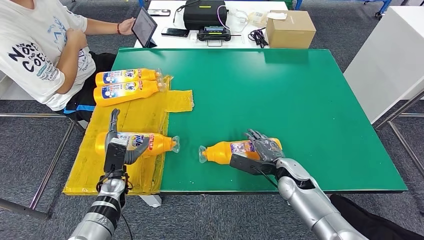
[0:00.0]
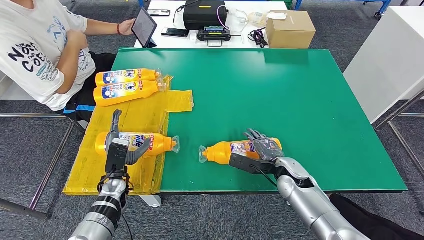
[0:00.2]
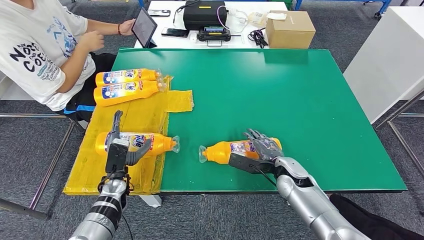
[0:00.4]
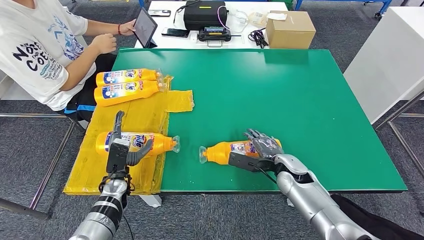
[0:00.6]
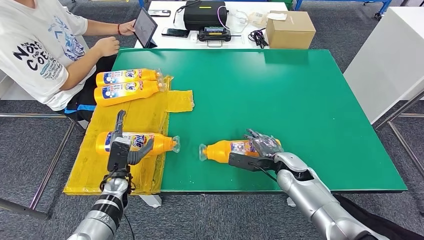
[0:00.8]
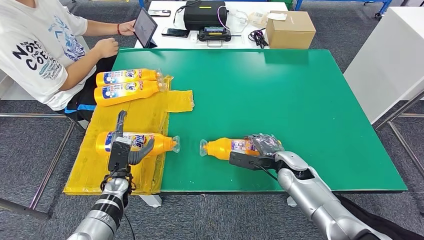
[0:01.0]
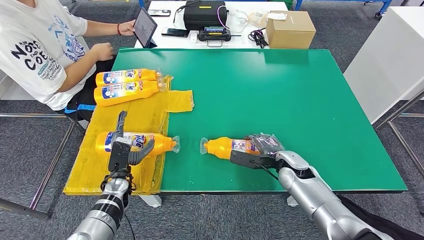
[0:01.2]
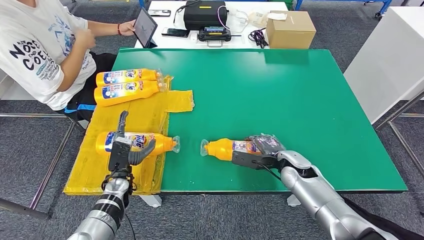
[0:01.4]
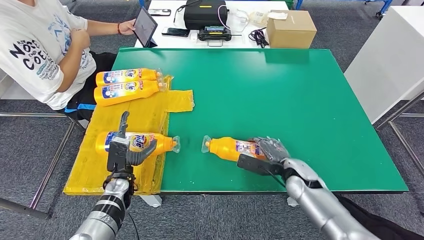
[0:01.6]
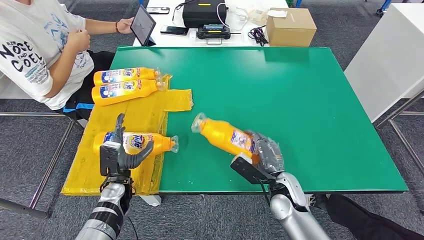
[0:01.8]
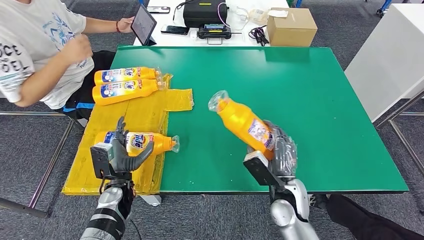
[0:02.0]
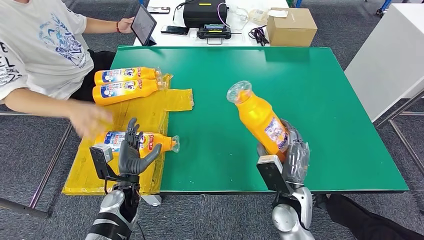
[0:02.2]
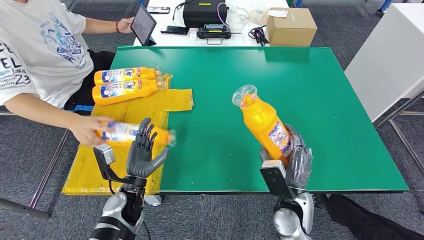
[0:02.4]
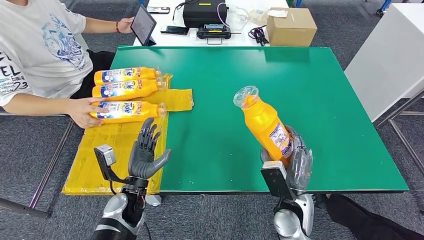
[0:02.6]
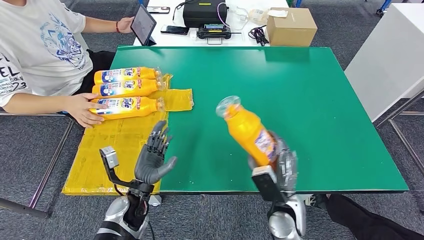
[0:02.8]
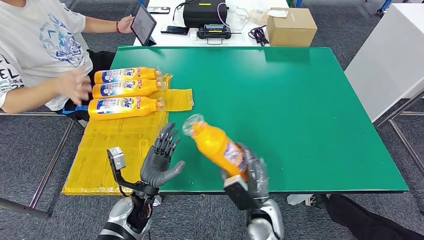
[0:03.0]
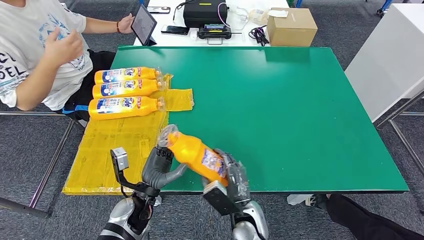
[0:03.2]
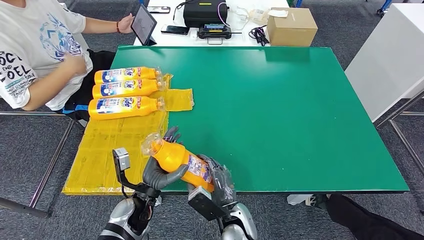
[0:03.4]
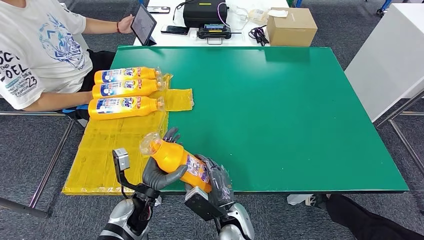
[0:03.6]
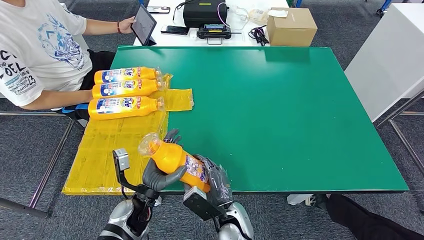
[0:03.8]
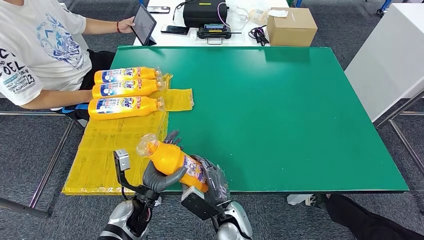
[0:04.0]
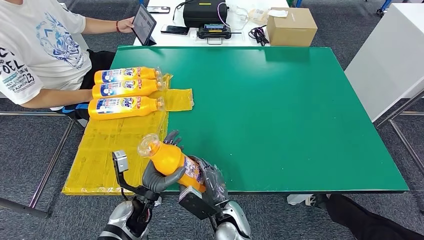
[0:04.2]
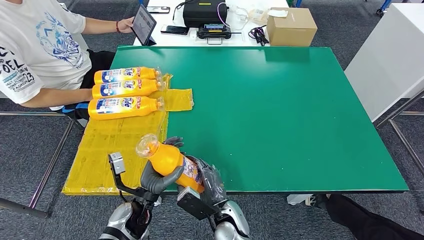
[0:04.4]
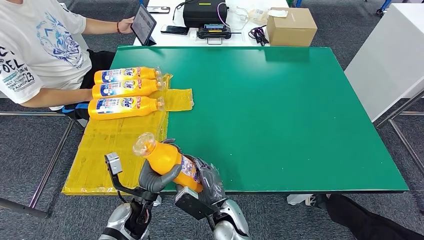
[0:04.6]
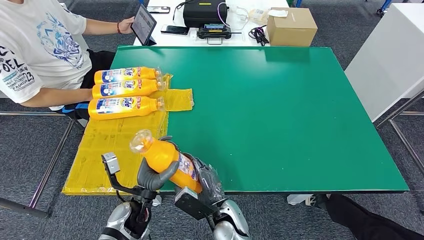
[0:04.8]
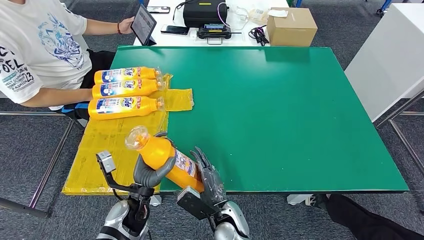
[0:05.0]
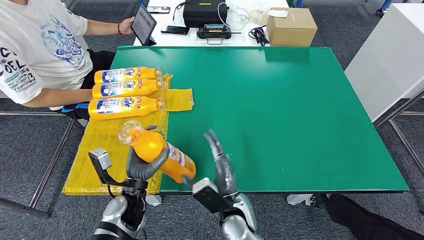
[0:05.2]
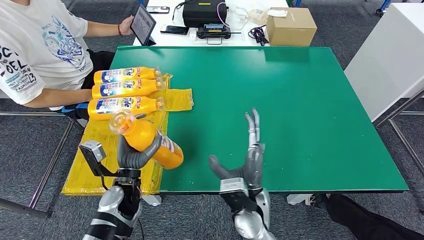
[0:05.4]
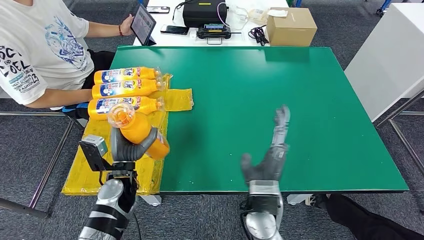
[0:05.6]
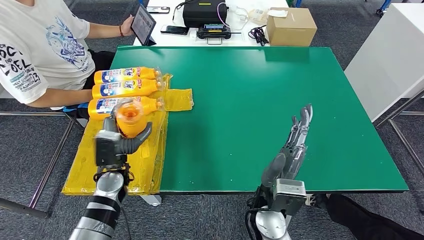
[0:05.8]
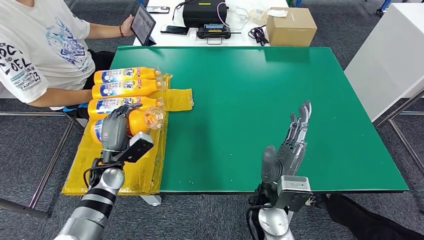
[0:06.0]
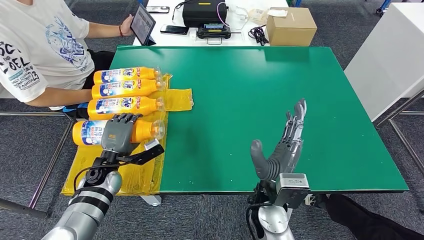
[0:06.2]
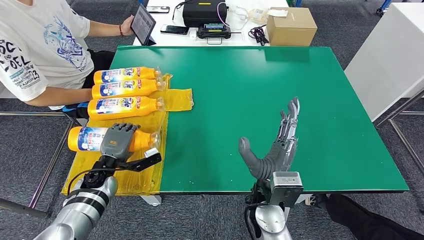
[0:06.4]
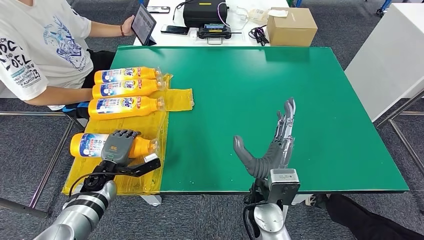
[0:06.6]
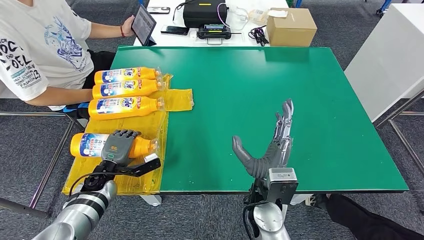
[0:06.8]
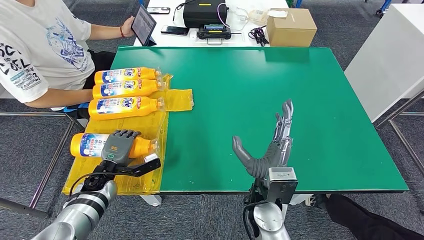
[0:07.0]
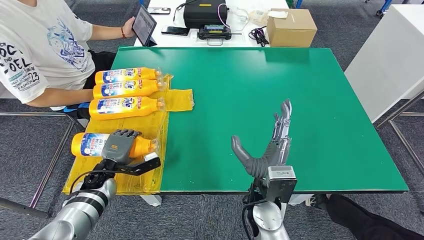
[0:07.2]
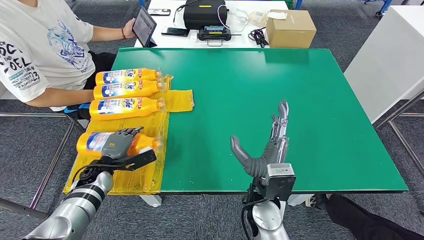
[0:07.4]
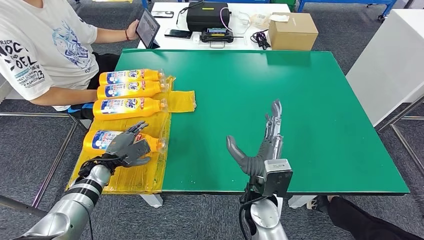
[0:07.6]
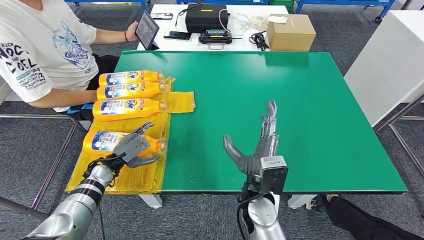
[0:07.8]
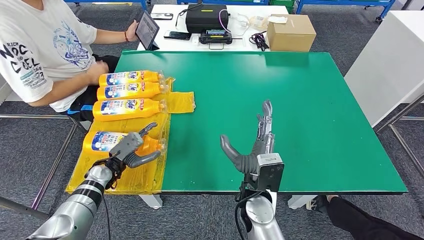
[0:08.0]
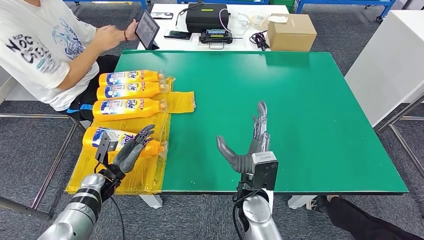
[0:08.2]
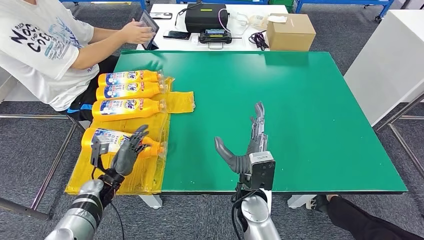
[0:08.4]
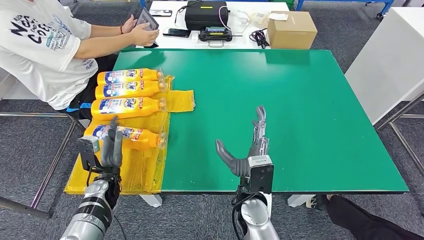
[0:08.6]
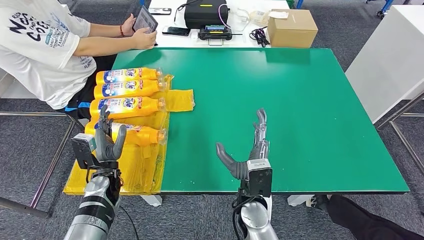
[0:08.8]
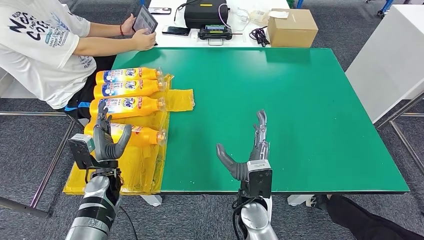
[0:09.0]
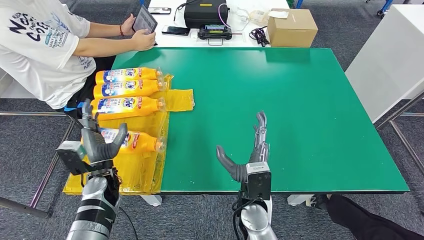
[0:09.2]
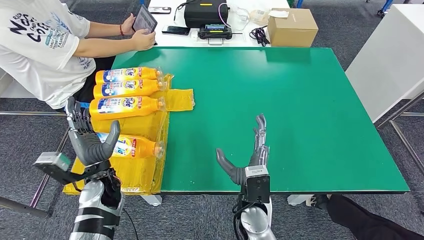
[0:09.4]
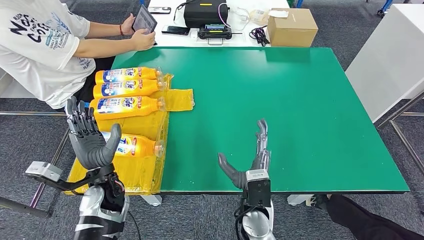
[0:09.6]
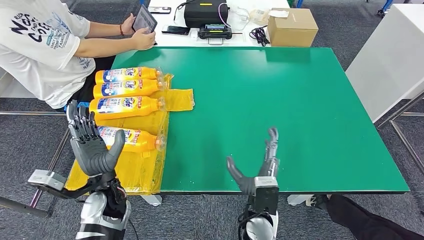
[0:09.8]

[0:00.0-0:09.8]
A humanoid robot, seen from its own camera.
Step, 0:00.0 to 0:03.0: Pick up the bottle from the table.
Step, 0:03.2 to 0:09.8: Flip the bottle to face forward.
0:00.0 to 0:01.4: There are only small adjustments of the hands.
0:02.8 to 0:04.2: The right hand travels to the left by approximately 15 cm.
0:04.2 to 0:05.6: The right hand travels upward and to the right by about 10 cm. The left hand heads forward, covering approximately 5 cm.
0:05.6 to 0:07.0: The left hand is displaced to the left and downward by approximately 10 cm.

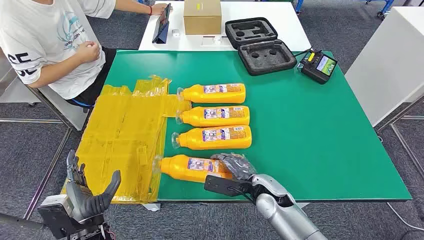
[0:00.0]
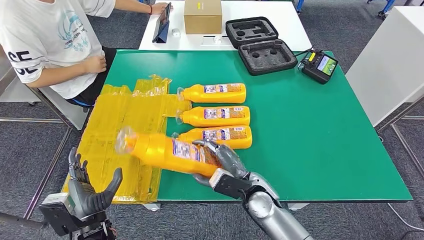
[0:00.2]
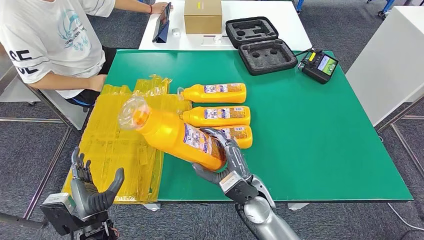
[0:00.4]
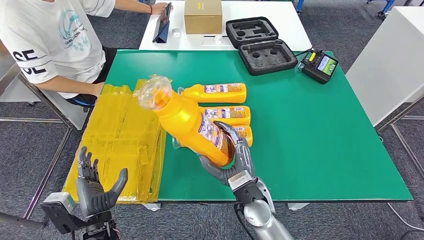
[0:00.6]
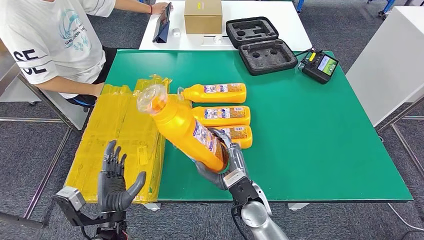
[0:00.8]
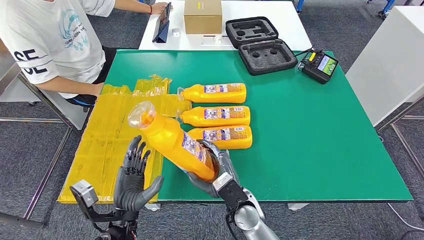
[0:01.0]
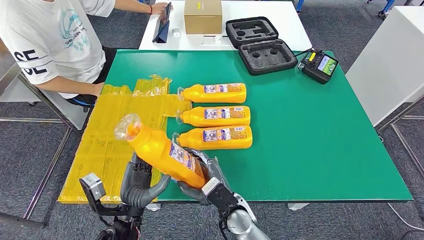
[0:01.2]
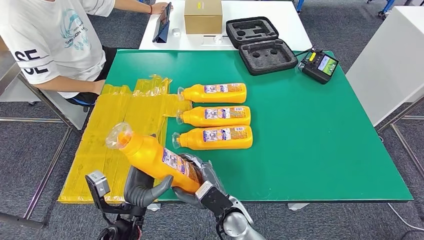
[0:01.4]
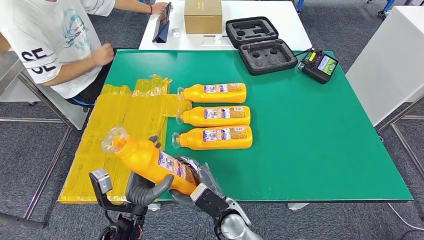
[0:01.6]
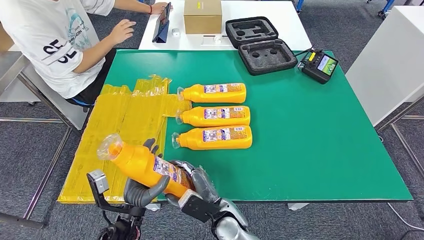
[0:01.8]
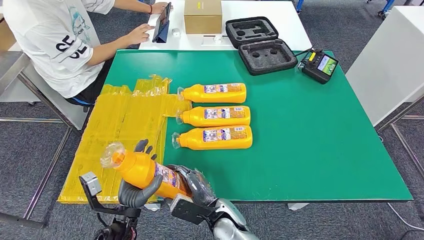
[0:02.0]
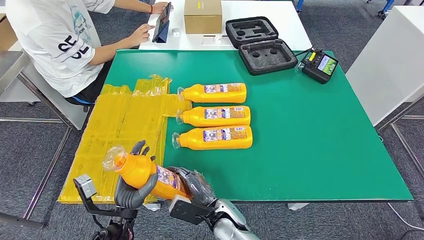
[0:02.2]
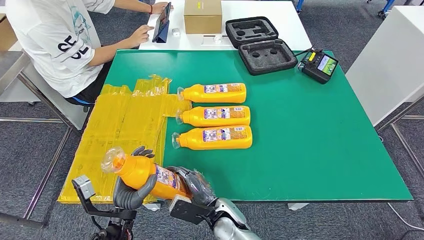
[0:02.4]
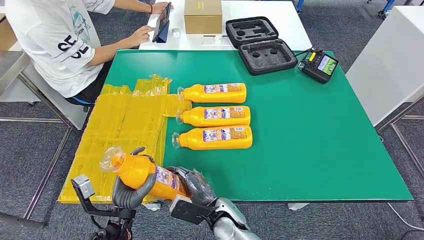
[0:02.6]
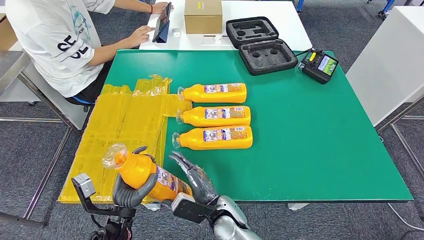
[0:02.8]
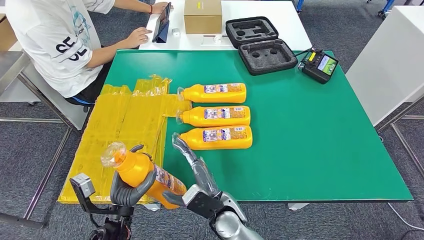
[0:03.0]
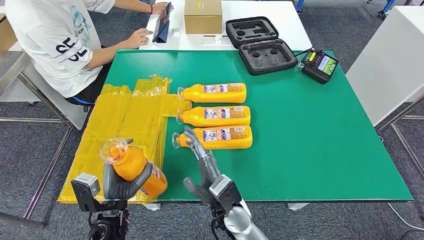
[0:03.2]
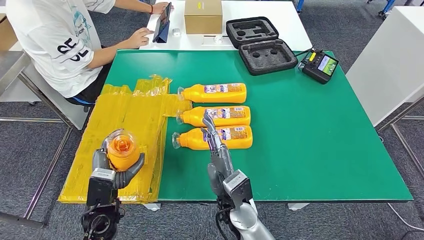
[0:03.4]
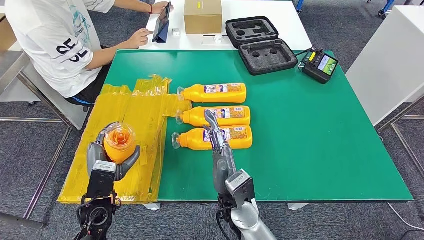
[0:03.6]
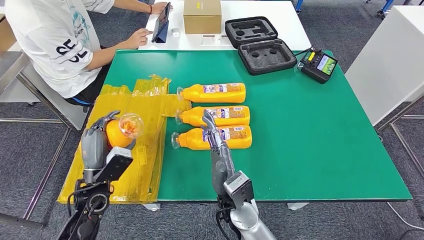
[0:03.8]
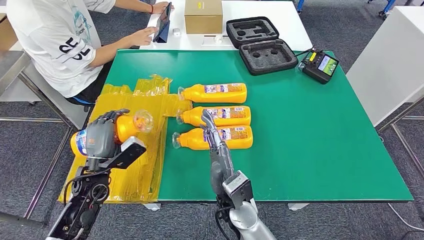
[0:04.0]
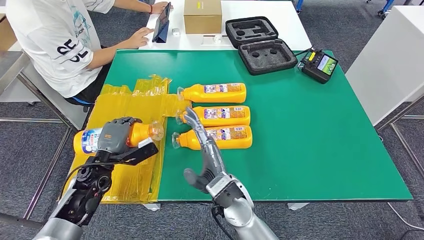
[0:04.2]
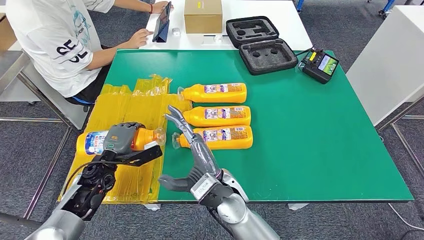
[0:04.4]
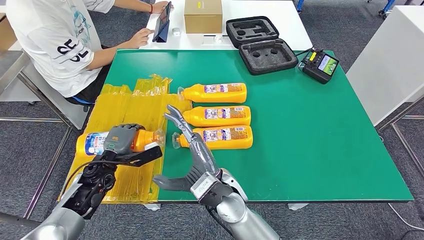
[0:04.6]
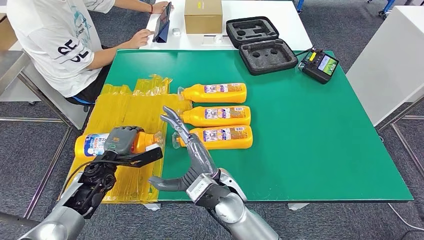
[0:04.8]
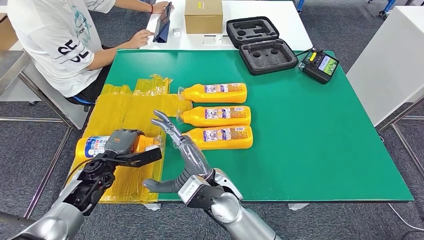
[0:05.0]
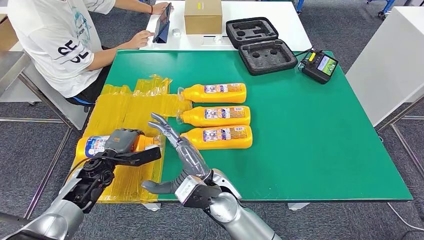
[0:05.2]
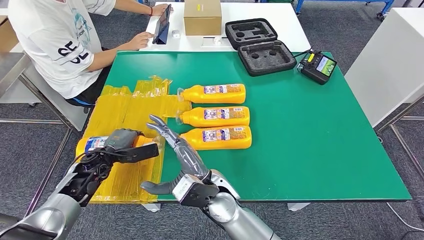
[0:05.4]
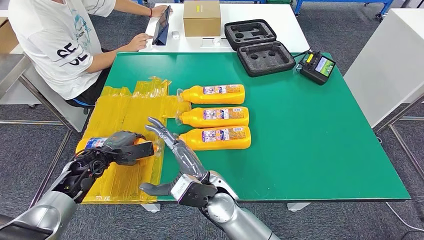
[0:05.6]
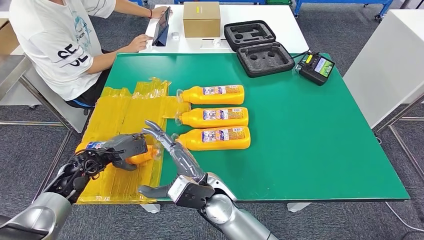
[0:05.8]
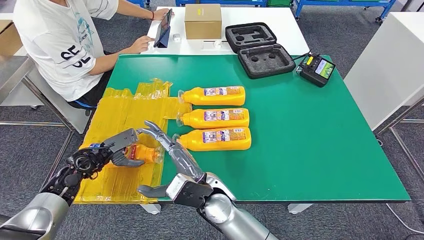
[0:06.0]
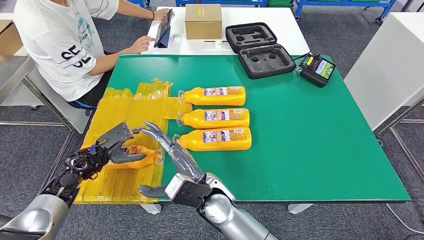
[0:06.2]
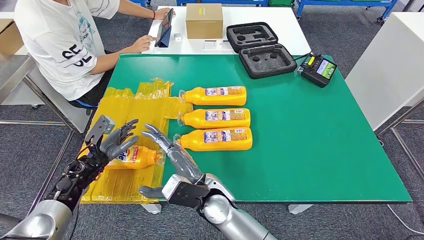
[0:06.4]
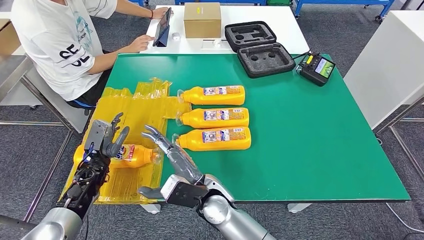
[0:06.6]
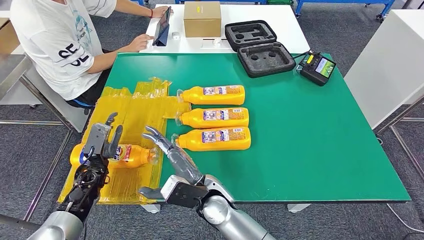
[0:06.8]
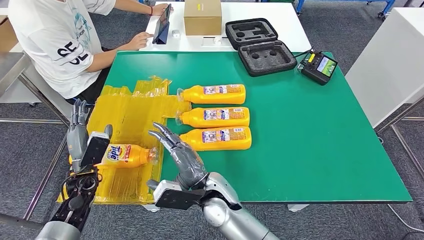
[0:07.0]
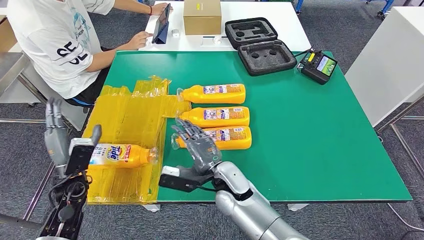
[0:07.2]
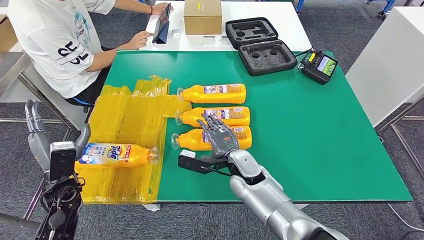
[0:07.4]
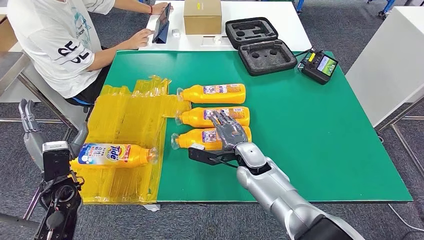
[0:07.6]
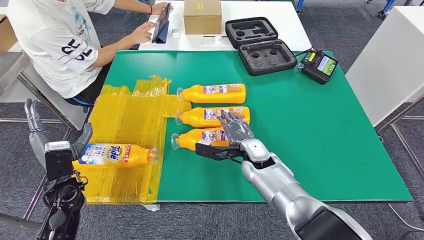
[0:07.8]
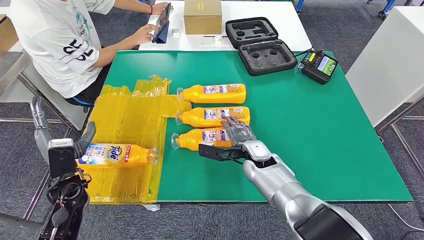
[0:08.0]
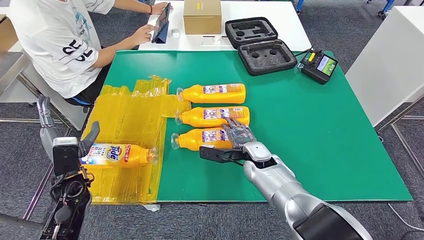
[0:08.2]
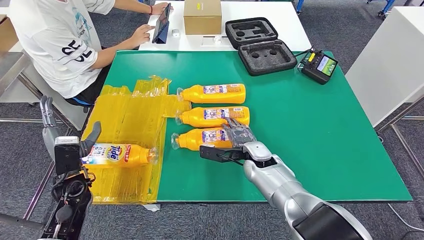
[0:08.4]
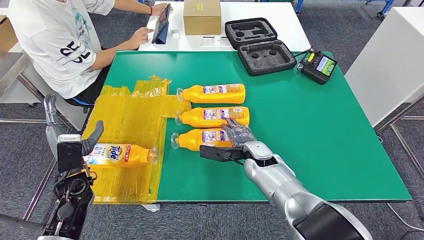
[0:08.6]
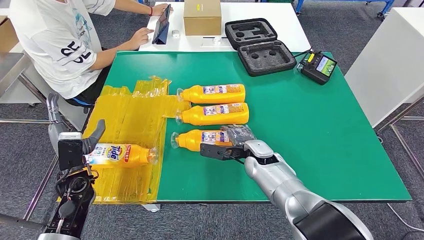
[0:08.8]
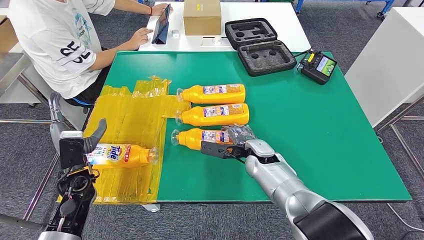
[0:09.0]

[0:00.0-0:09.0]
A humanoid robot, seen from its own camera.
Step, 0:00.0 to 0:01.8: Take the bottle from the table.
Step, 0:03.2 to 0:07.0: Flip the bottle to face forward.
0:01.6 to 0:03.0: The hands make only small movements.
0:03.0 to 0:04.4: The left hand goes approximately 15 cm forward and to the left. Meanwhile the right hand heads upward, covering about 10 cm.
0:07.6 to 0:09.0: The hands move only a little.
